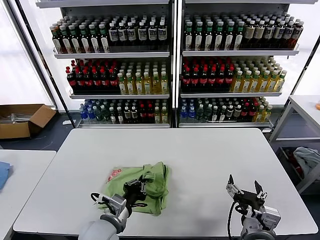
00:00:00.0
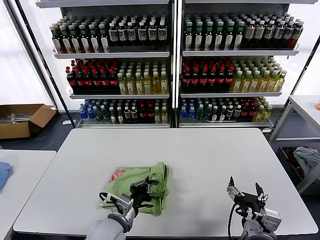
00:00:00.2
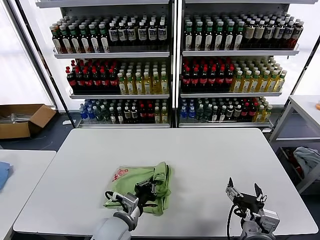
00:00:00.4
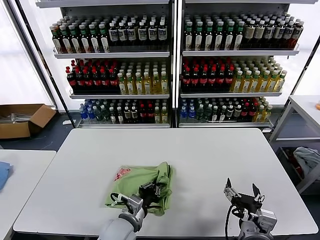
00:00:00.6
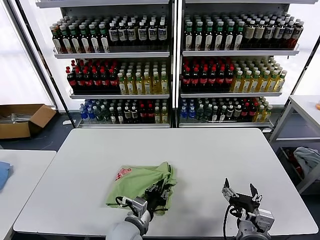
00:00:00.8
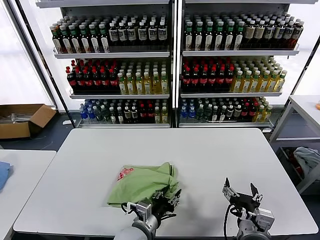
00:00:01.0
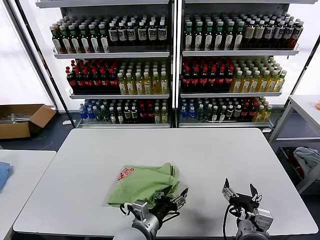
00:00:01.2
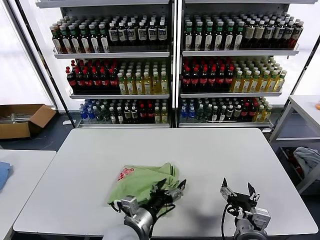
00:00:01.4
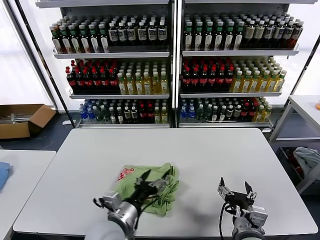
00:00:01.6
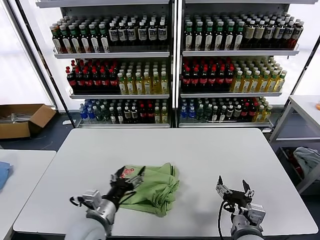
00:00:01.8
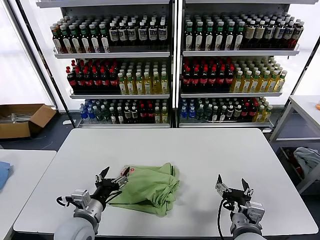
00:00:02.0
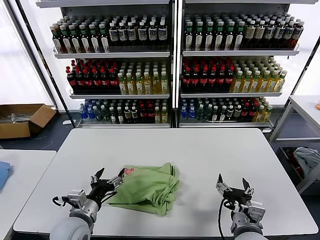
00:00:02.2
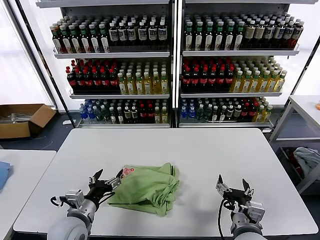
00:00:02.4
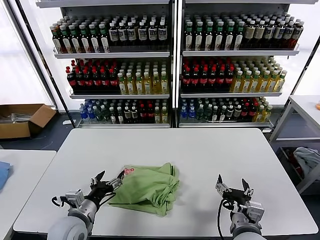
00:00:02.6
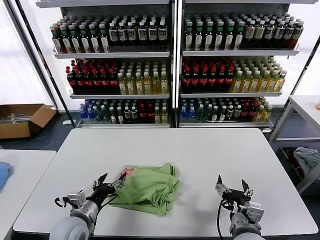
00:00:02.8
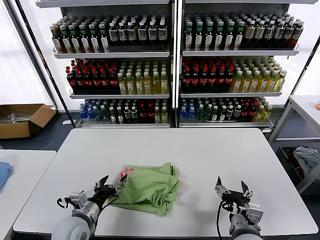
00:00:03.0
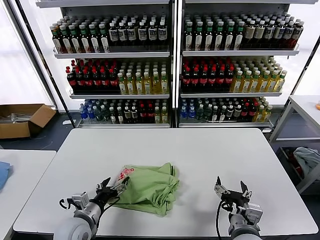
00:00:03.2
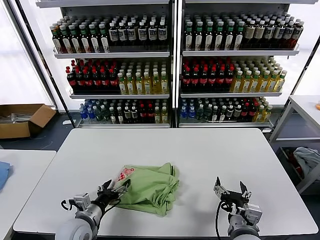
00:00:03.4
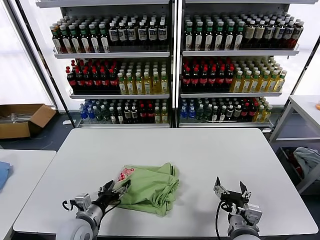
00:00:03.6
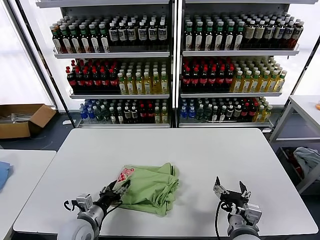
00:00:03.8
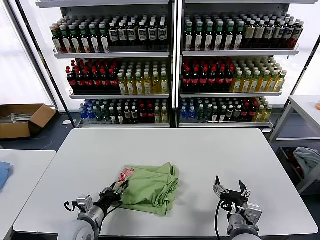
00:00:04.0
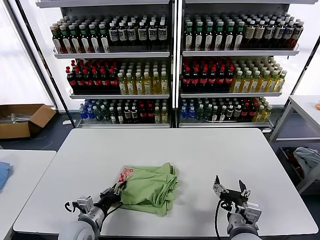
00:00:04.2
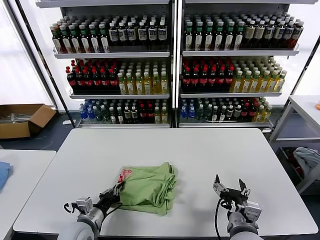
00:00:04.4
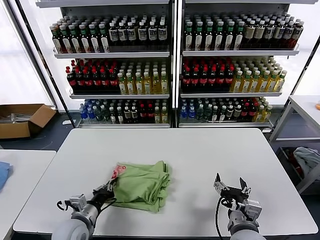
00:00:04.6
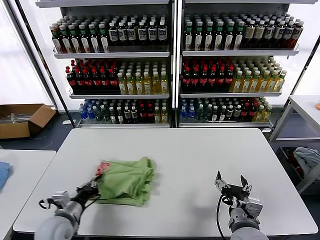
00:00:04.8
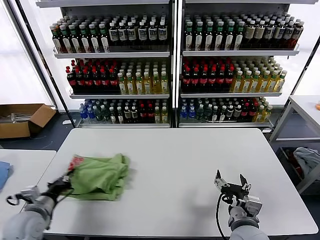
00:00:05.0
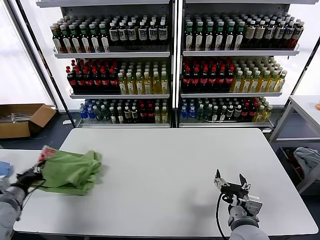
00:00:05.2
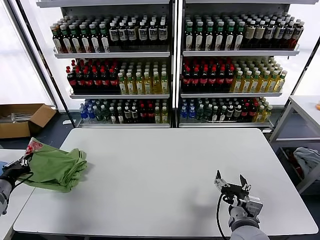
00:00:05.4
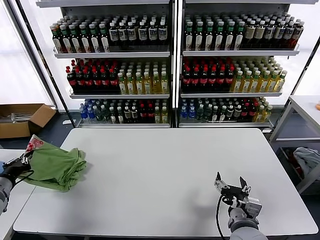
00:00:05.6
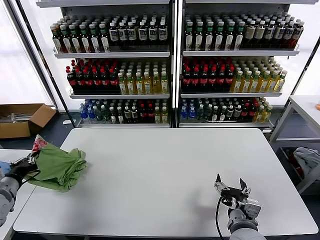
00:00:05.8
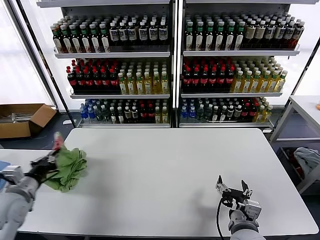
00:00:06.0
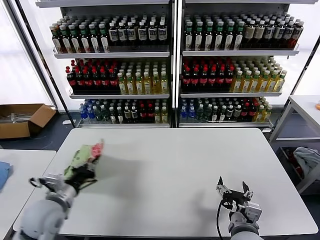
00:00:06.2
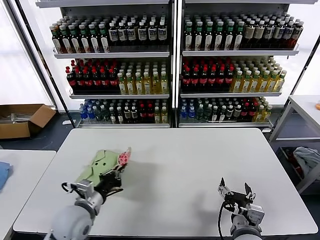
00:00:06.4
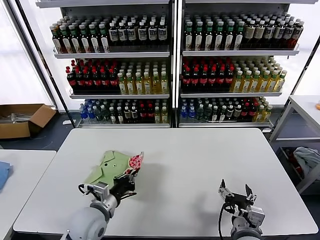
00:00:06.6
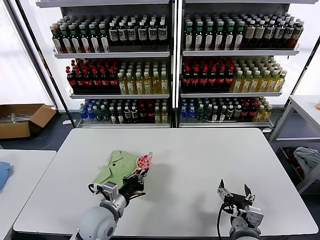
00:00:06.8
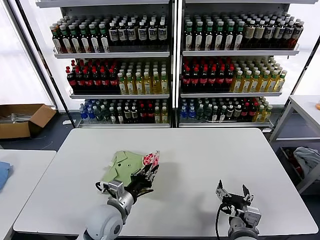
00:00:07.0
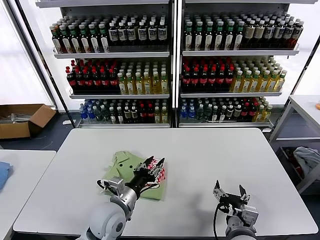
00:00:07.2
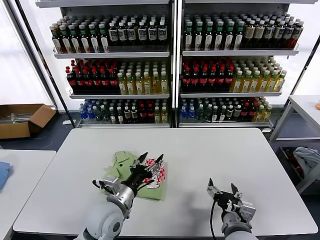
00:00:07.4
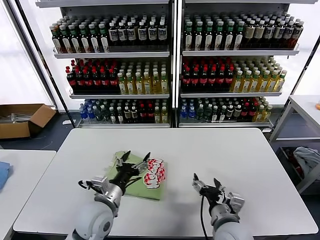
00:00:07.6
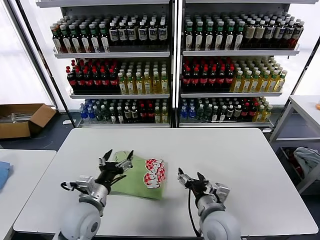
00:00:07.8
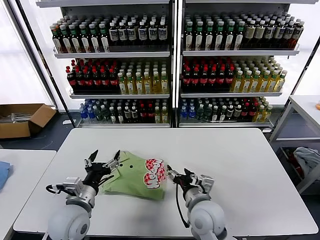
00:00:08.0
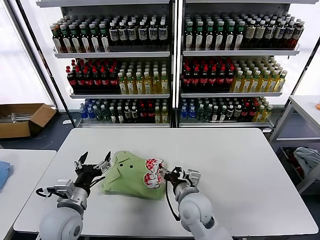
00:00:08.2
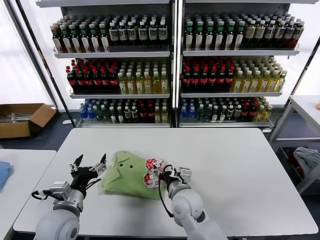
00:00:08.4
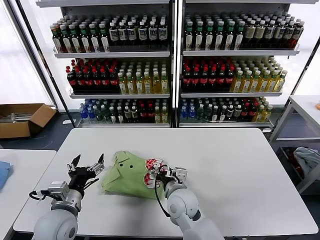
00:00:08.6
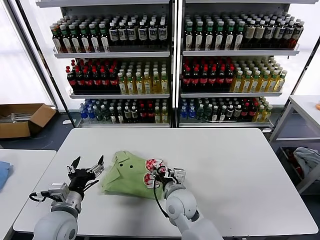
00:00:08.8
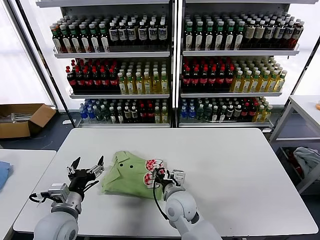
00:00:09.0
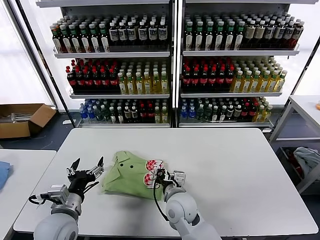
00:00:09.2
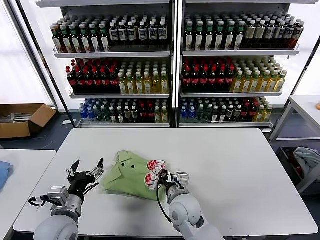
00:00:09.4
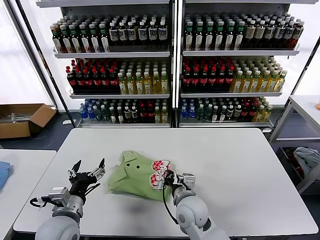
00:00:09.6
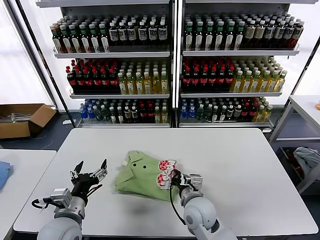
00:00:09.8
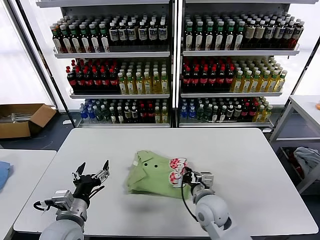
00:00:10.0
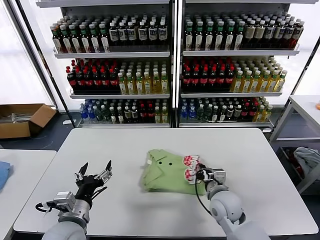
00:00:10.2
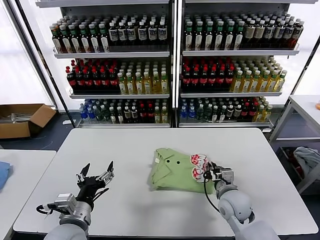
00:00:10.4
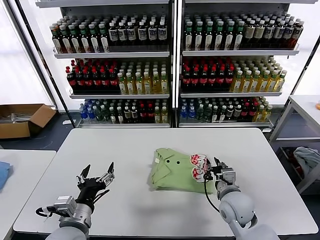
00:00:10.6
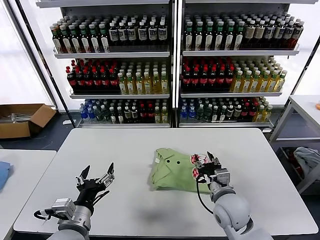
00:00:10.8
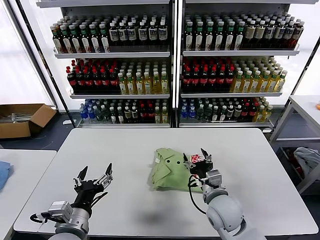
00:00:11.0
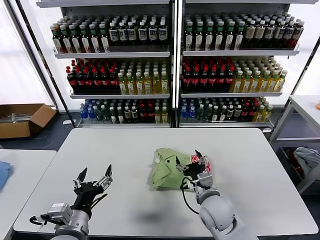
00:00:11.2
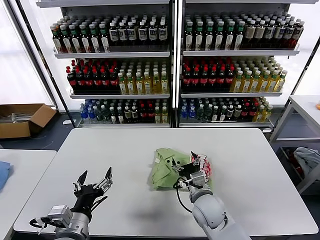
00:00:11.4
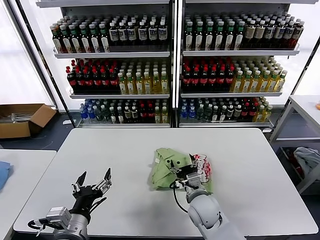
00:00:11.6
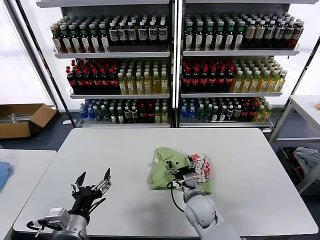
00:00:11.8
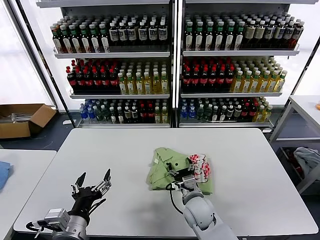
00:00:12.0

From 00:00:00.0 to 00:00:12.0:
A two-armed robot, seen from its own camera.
Task of the whole recording: fold and organize the clothes.
Step, from 00:00:01.4 to 00:00:07.2: Flip the folded clothes over with left gripper.
From 00:00:00.0 to 00:00:01.6: The left gripper opens its fingers.
From 00:00:01.6 to 00:00:03.0: The left gripper heads to the left and downward, covering some 15 cm.
From 00:00:03.0 to 00:00:04.4: The left gripper closes.
From 00:00:04.4 to 00:00:06.0: The left gripper moves to the left and upward, some 20 cm.
From 00:00:06.0 to 00:00:07.6: The left gripper is displaced to the right by approximately 25 cm, and opens.
From 00:00:07.6 to 00:00:09.0: The left gripper moves to the left, approximately 10 cm. The right gripper goes roughly 15 cm to the left and forward, and closes.
From 00:00:09.0 to 00:00:10.4: The right gripper shifts about 15 cm to the right, and closes up.
From 00:00:10.4 to 00:00:12.0: The right gripper travels to the left by some 10 cm, and opens its fingers.

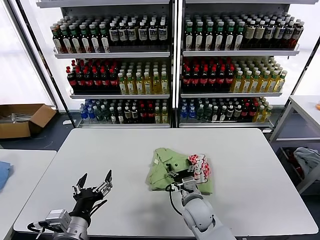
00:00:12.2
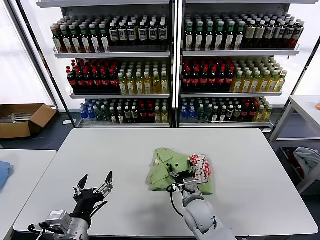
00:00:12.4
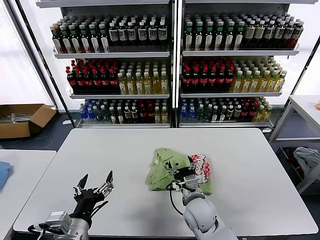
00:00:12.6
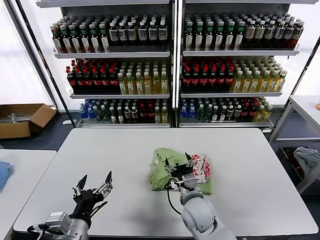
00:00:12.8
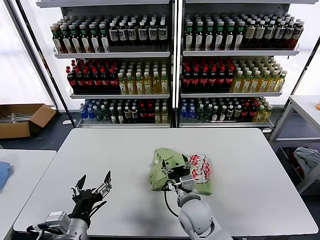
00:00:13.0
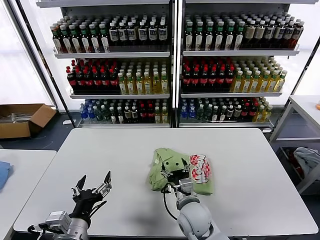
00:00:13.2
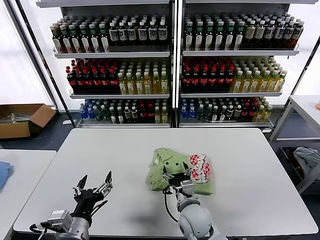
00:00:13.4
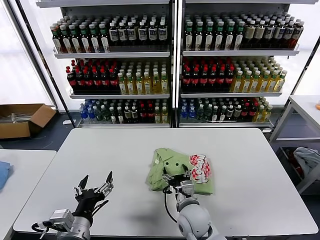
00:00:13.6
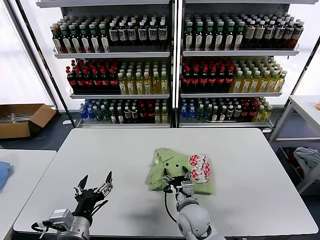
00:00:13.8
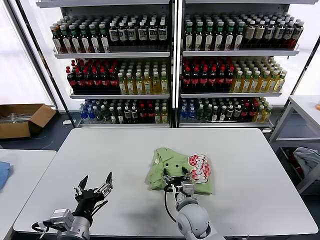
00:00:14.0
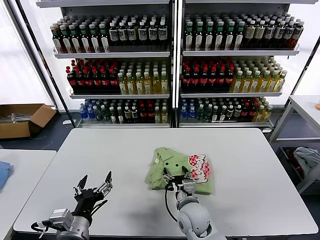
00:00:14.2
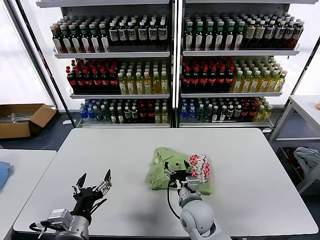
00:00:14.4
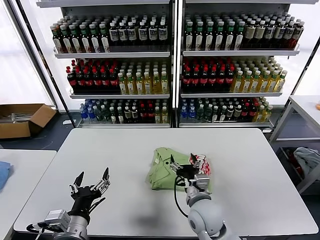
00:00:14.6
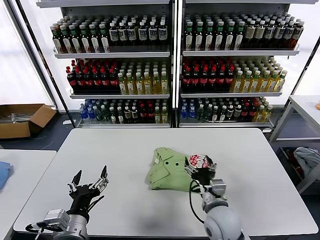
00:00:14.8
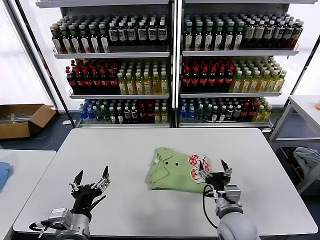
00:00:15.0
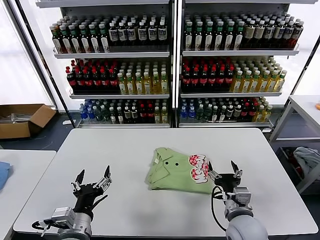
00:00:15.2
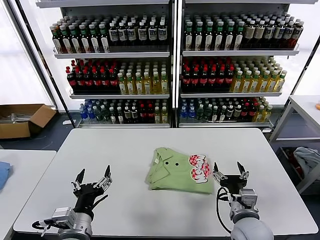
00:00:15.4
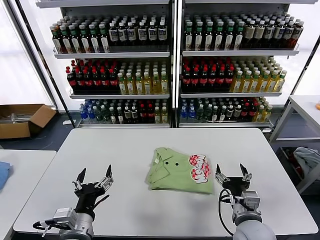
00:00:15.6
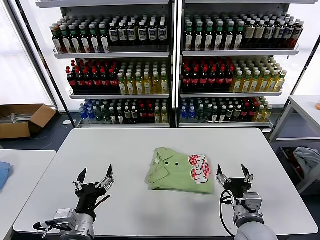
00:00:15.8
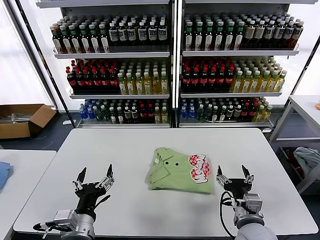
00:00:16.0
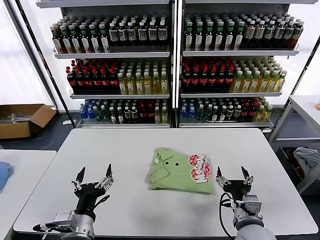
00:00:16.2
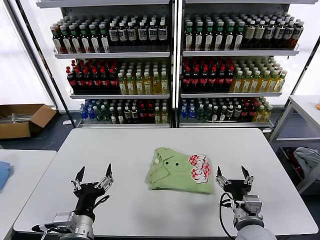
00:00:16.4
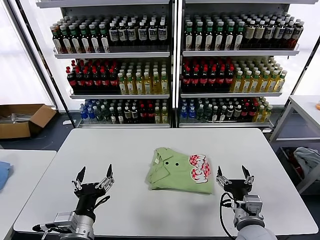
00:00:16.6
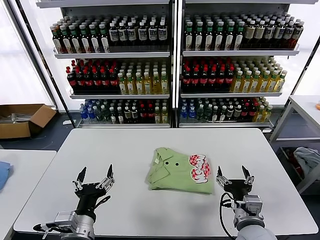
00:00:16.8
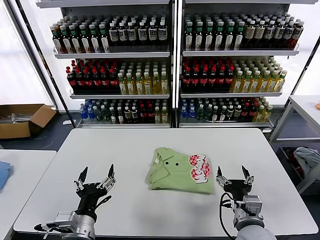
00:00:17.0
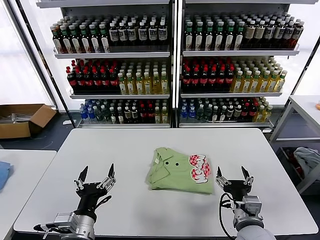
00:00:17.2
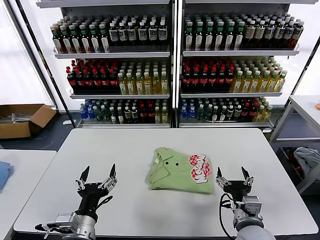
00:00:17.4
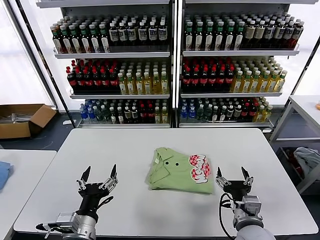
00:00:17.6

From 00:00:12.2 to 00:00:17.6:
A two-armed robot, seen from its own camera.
Task of the whole recording: fold and organize the clothes.
Step, from 00:00:12.2 to 00:00:14.2: Drag the clothes to the center of the table.
From 00:00:12.2 to 00:00:13.6: The grippers move only a little.
From 00:00:13.6 to 00:00:15.0: The right gripper moves to the right, about 10 cm.
From 00:00:15.0 to 00:00:16.2: The right gripper shifts by about 5 cm.
From 00:00:16.2 to 00:00:17.6: Both grippers stay about where they are.

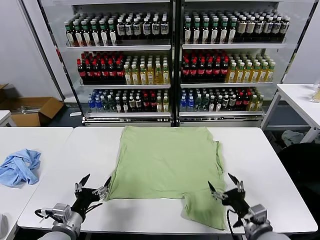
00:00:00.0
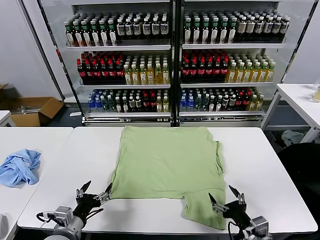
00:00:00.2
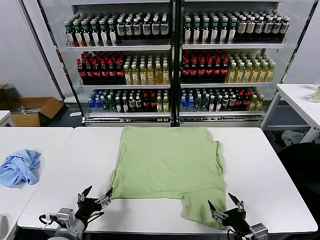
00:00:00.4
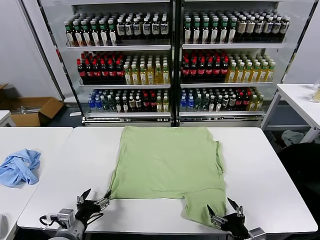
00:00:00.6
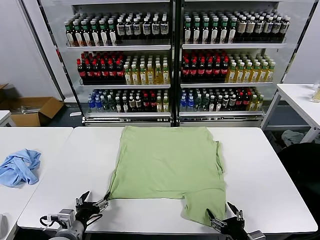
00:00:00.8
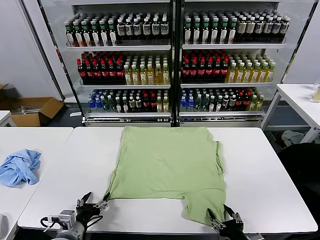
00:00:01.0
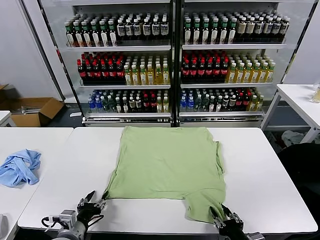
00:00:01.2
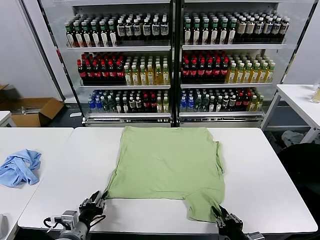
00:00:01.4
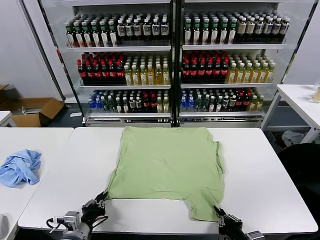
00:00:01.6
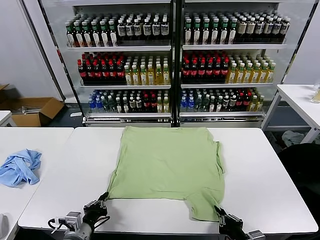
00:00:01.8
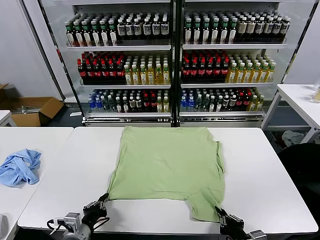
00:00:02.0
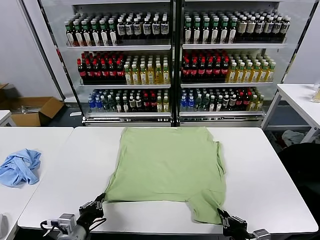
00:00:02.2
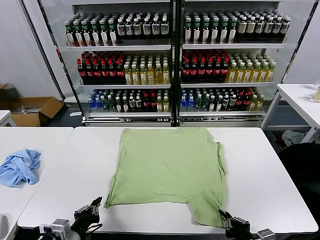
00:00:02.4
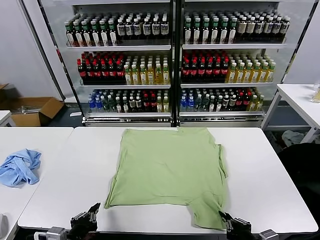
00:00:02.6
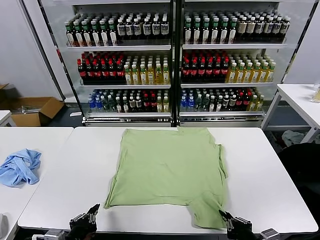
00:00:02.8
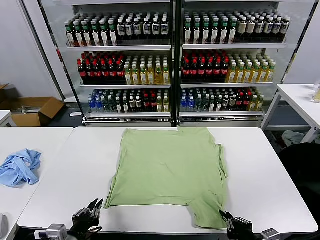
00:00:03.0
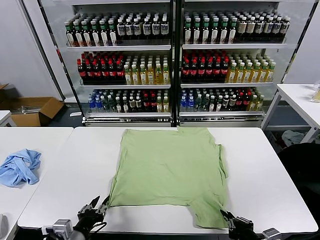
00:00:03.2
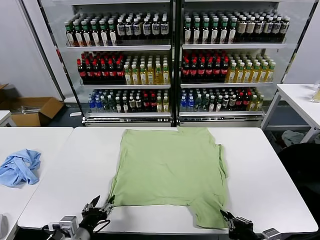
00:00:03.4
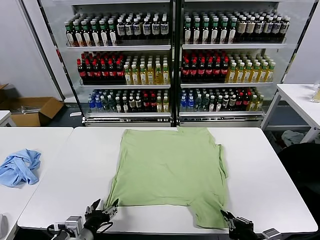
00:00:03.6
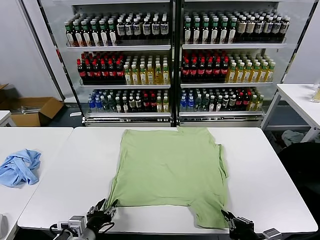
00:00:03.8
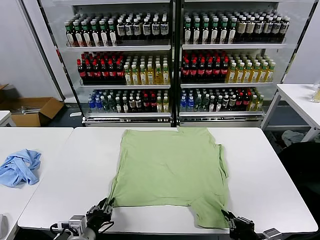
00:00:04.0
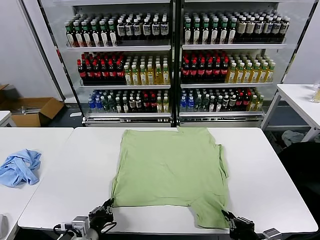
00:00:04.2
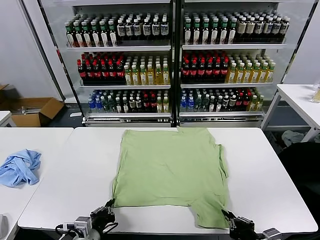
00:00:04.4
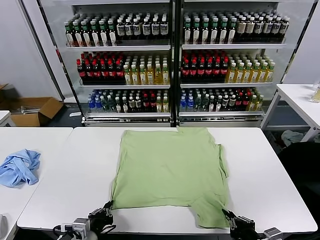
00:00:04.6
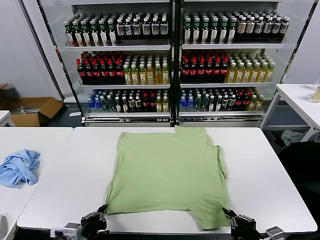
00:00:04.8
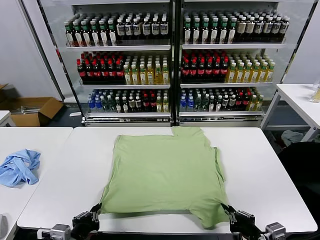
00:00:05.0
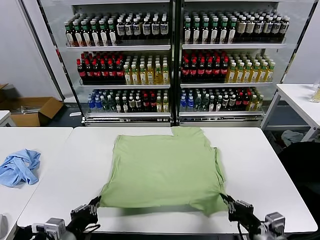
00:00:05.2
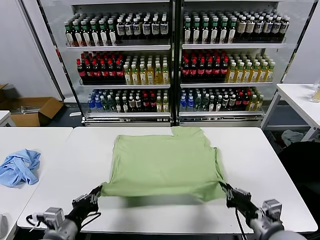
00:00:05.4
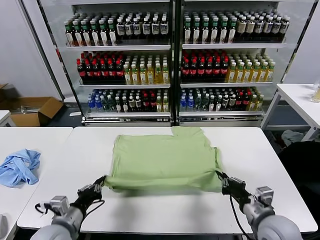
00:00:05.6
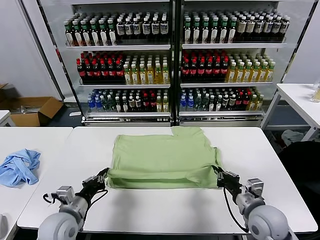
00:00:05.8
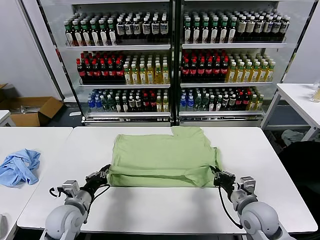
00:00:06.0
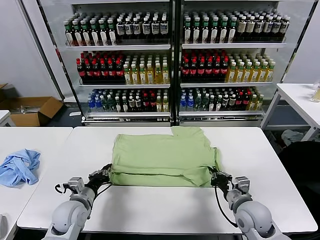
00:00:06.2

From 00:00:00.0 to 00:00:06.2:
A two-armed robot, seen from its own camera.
Task of the whole recording: fold and organize the clothes.
Step, from 00:00:00.0 to 00:00:02.0: use both grippers simultaneously to clamp the lower edge of the clothing fabric.
From 00:00:01.6 to 00:00:03.2: The left gripper ends up roughly 5 cm from where it was, while the right gripper moves upward, some 5 cm.
From 00:00:03.2 to 00:00:04.6: The left gripper closes up.
From 00:00:04.6 to 00:00:06.2: The left gripper heads forward and to the left, covering about 15 cm; the right gripper shifts approximately 15 cm forward.
